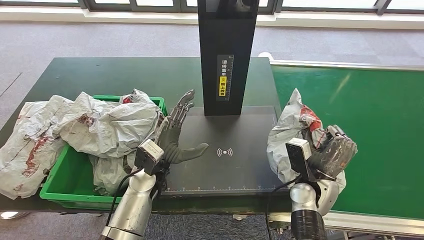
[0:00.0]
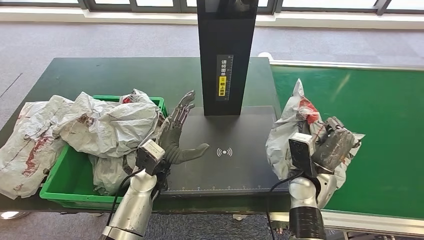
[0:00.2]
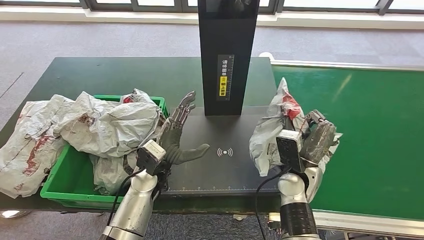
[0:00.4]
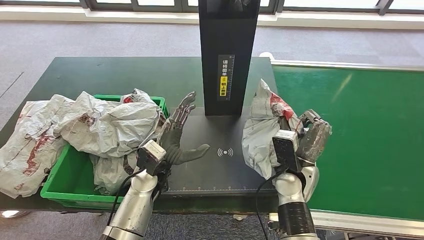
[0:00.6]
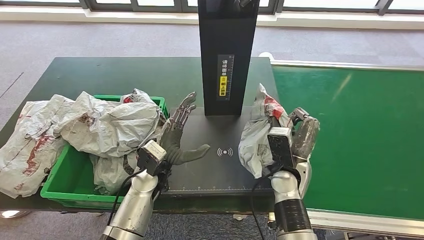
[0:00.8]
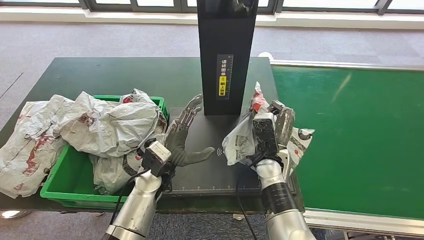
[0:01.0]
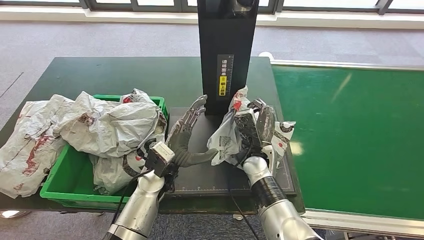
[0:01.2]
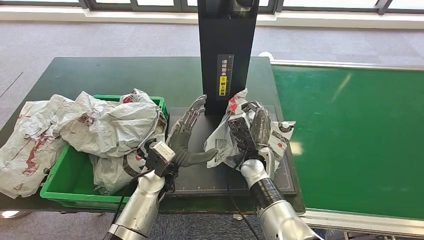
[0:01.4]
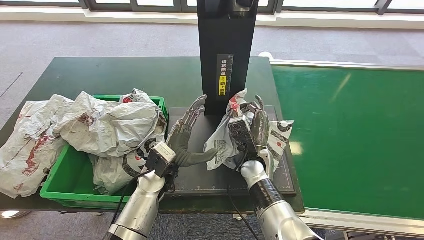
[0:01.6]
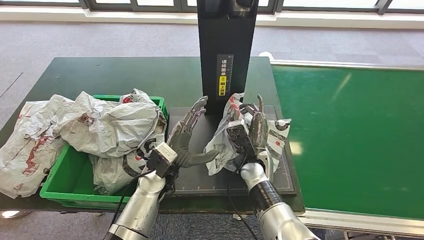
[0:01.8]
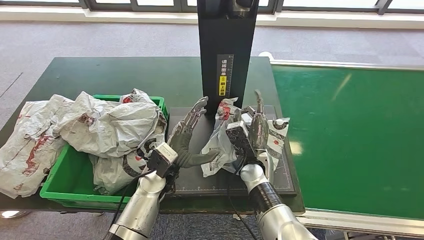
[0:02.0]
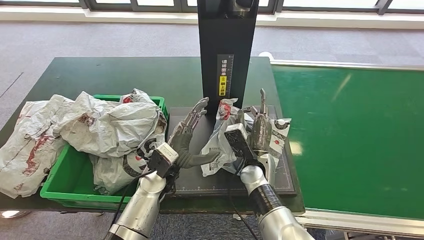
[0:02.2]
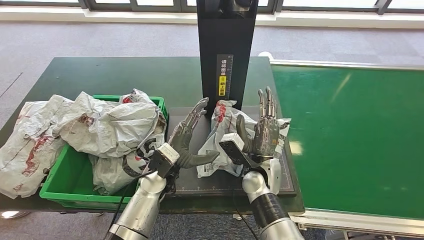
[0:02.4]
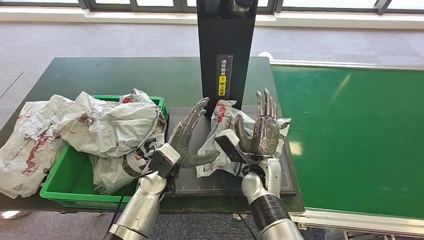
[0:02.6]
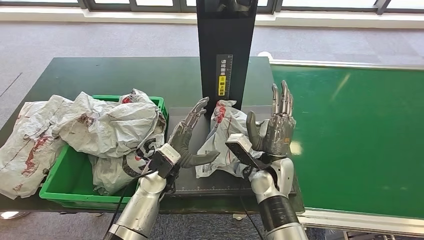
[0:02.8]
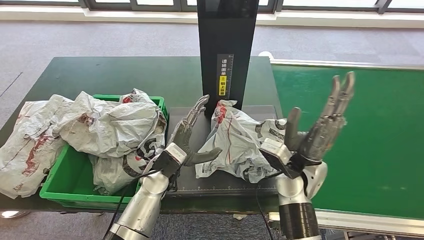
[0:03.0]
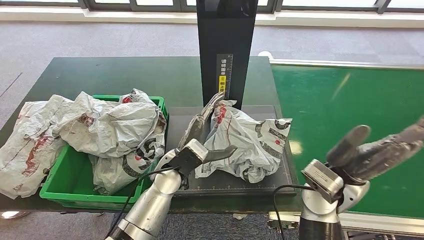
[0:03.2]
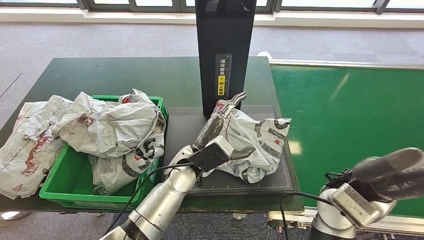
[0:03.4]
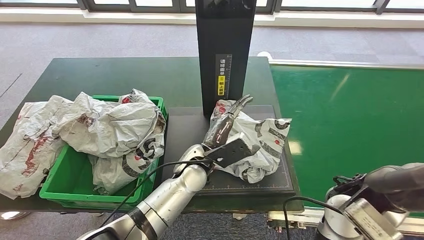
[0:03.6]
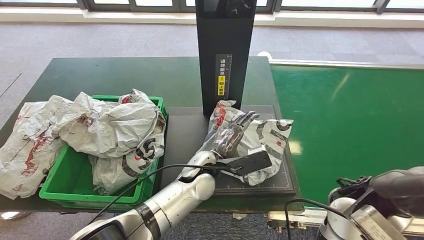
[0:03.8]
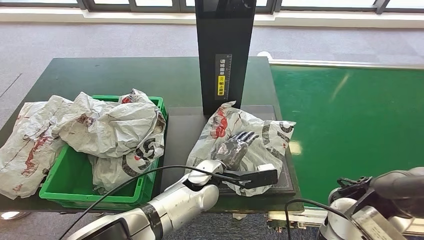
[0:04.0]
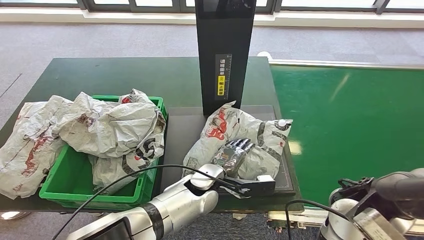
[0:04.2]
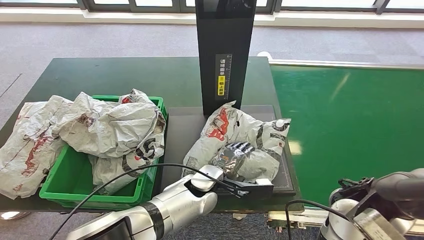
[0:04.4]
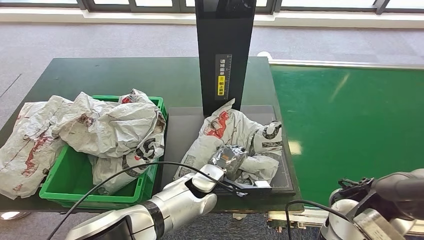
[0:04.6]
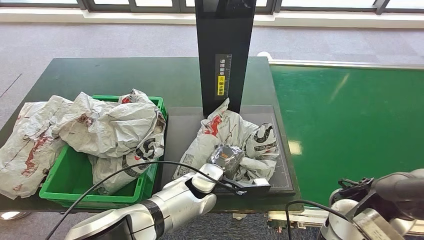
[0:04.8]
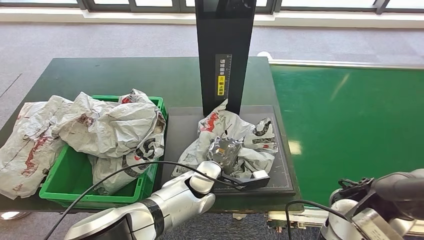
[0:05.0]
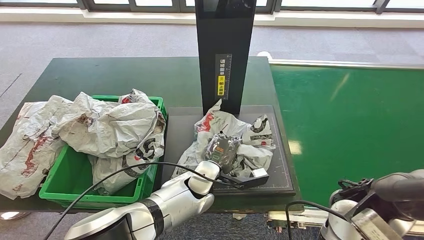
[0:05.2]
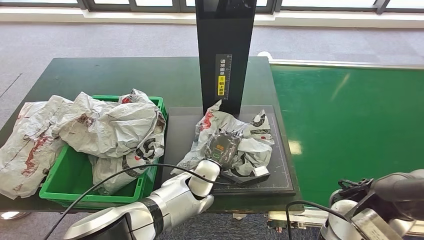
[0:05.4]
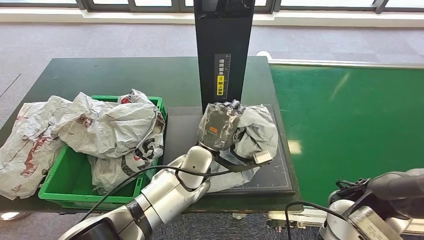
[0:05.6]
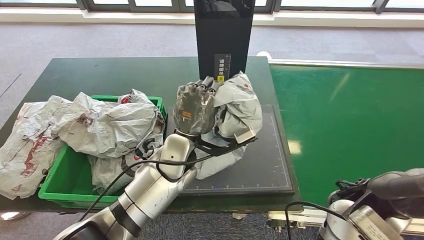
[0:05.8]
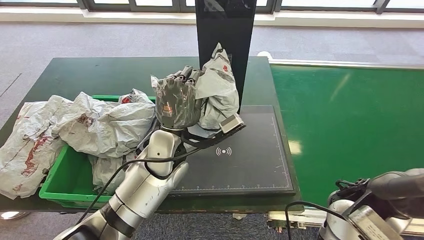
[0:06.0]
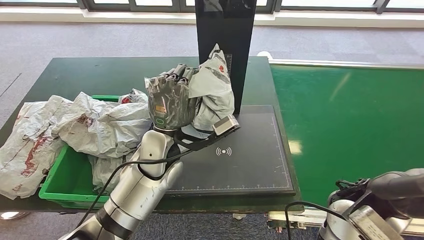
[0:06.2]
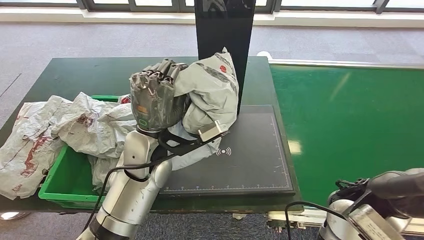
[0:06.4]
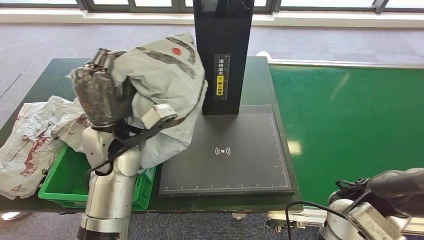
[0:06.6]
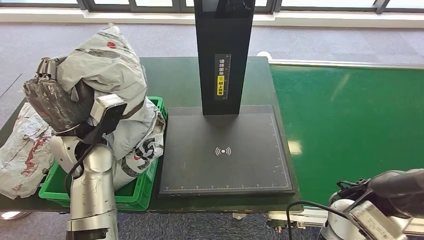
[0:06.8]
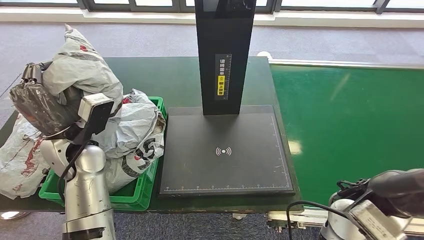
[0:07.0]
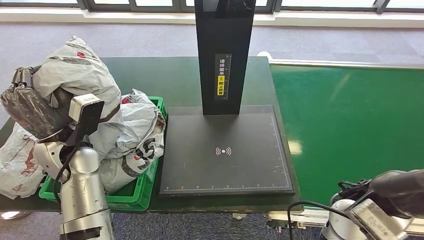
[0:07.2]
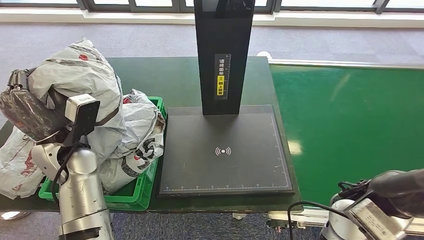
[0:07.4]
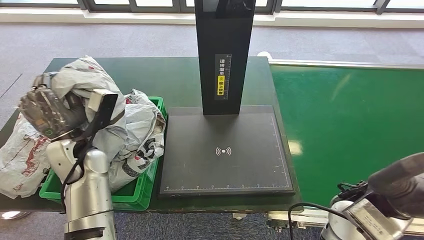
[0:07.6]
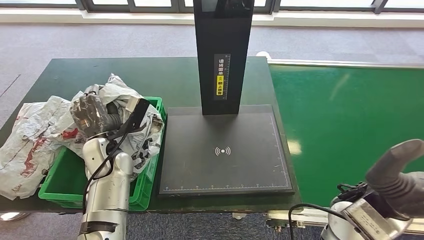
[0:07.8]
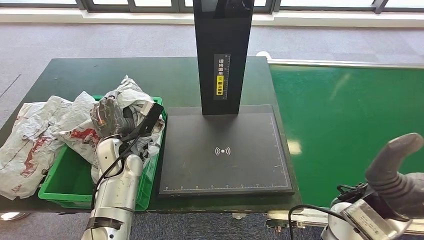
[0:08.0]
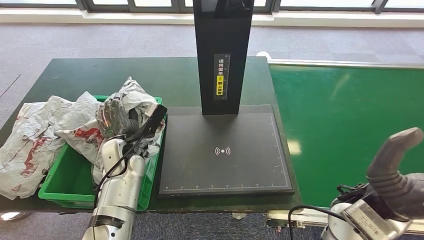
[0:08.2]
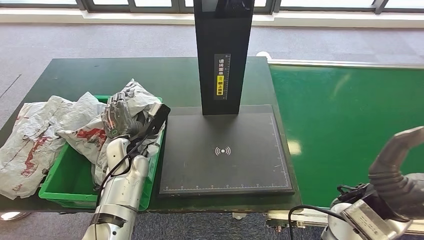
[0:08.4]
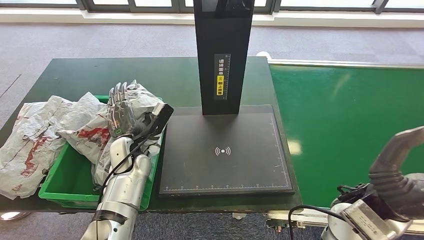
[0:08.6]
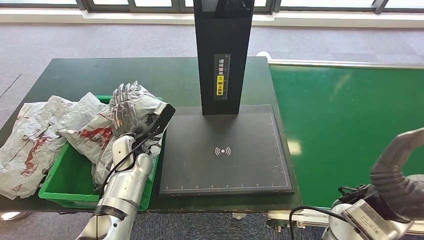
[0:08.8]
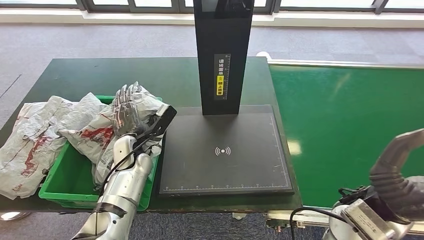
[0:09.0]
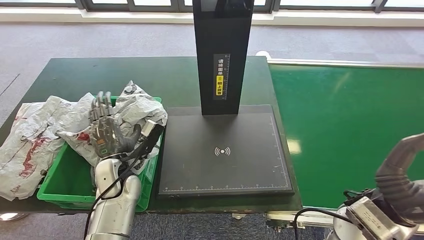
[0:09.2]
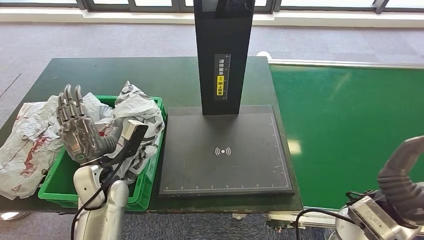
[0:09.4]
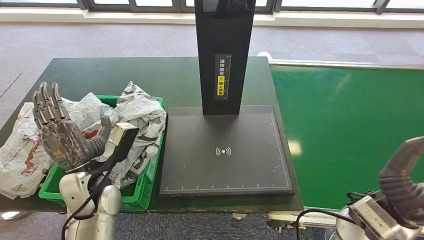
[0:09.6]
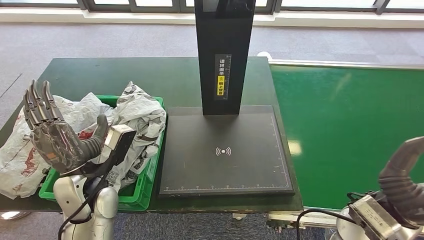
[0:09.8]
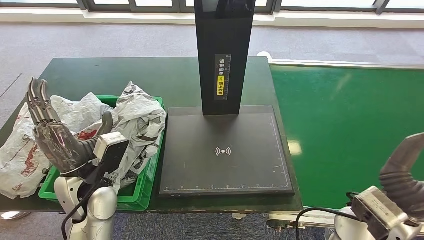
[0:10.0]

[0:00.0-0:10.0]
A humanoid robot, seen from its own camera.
Step, 0:00.8 to 0:03.0: Place the parcel onto the inbound machine.
Step, 0:03.2 to 0:06.0: Pick up the parcel from the inbound machine.
Step, 0:06.2 to 0:10.0: Place the parcel into the delivery box.
0:00.0 to 0:01.4: The right hand goes approximately 15 cm to the left.
0:04.2 to 0:05.8: The left hand heads upward and to the left, covering roughly 10 cm.
0:08.6 to 0:10.0: The left hand goes roughly 15 cm backward and upward.

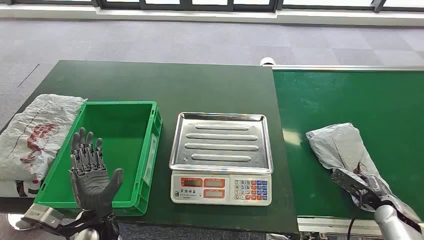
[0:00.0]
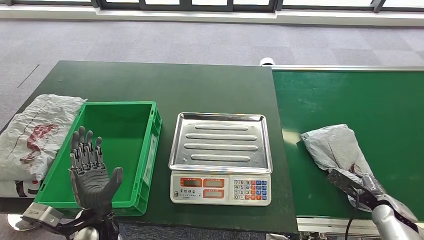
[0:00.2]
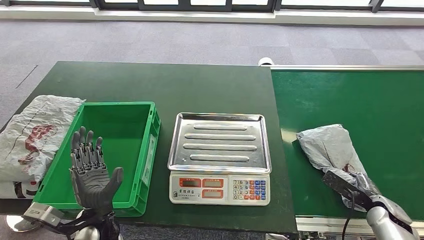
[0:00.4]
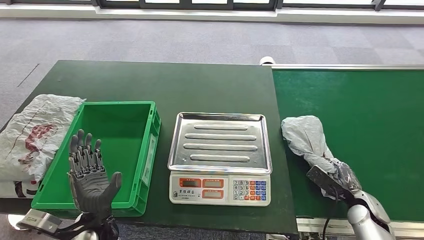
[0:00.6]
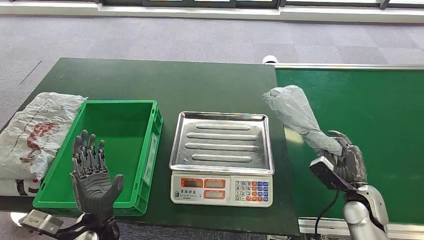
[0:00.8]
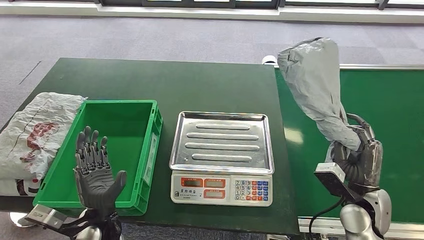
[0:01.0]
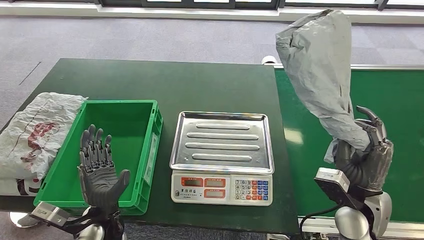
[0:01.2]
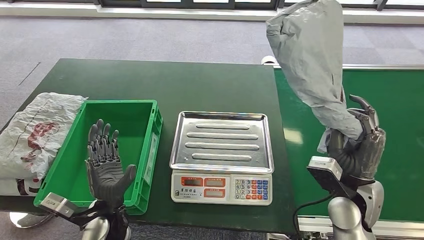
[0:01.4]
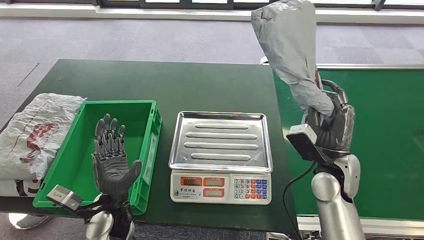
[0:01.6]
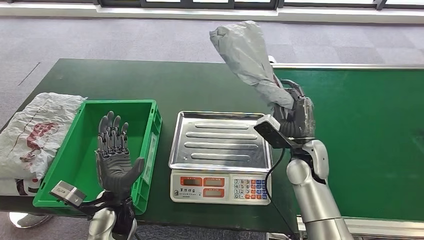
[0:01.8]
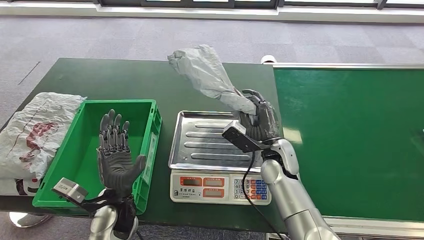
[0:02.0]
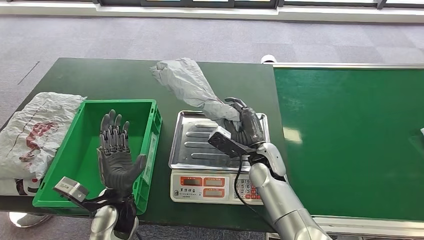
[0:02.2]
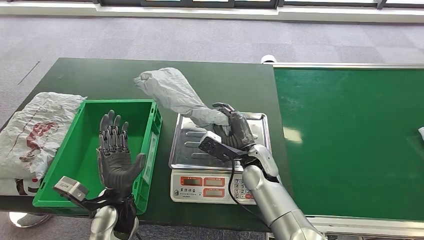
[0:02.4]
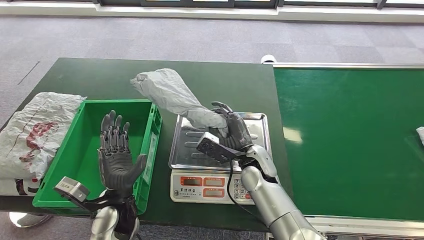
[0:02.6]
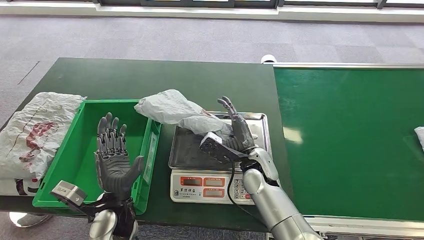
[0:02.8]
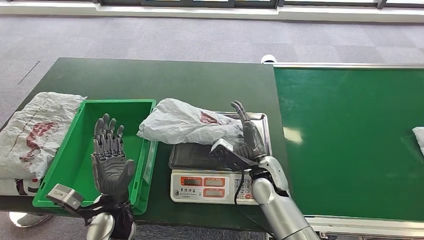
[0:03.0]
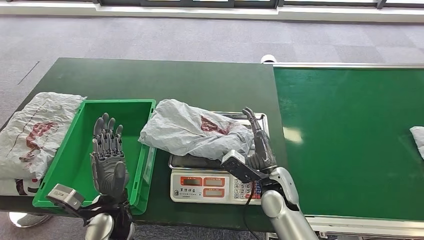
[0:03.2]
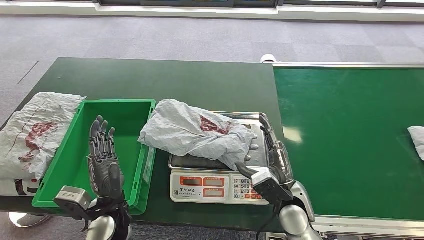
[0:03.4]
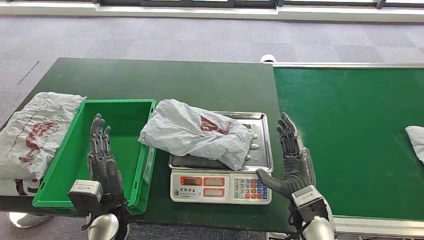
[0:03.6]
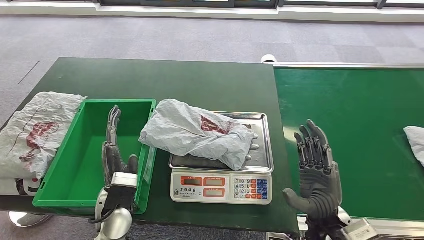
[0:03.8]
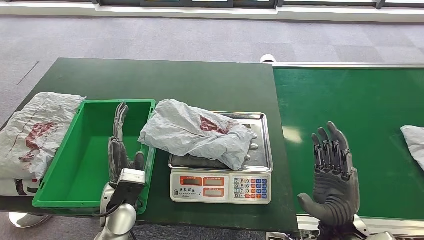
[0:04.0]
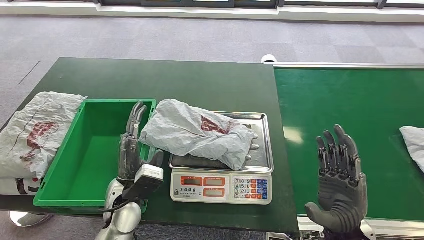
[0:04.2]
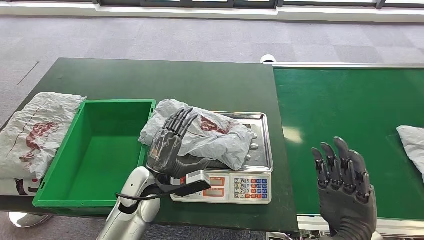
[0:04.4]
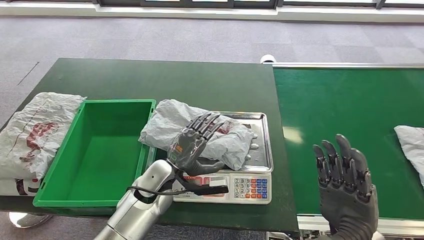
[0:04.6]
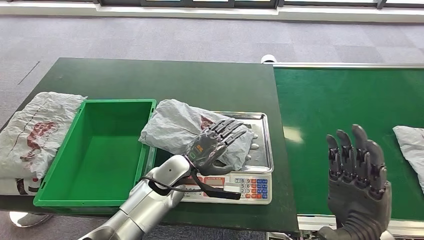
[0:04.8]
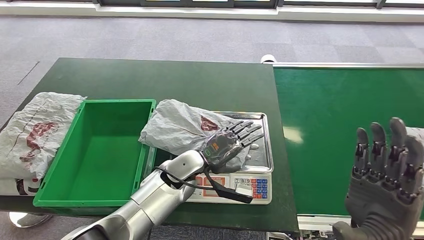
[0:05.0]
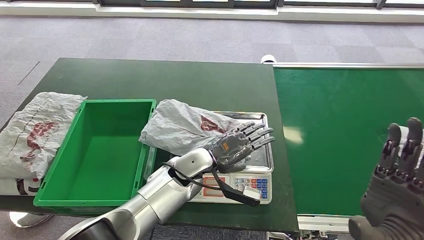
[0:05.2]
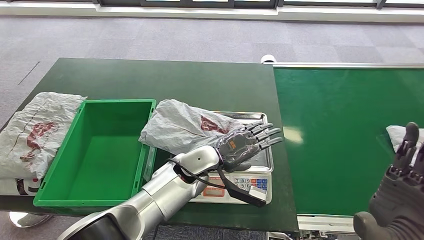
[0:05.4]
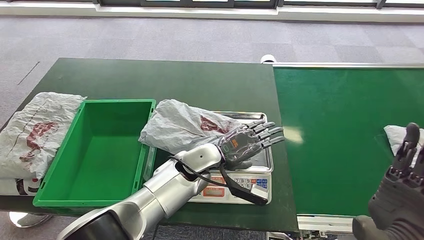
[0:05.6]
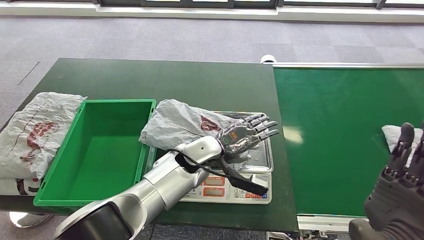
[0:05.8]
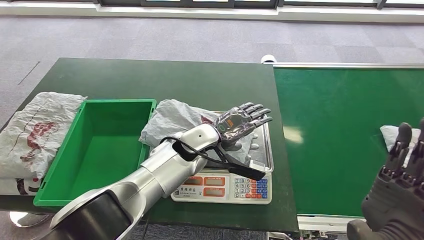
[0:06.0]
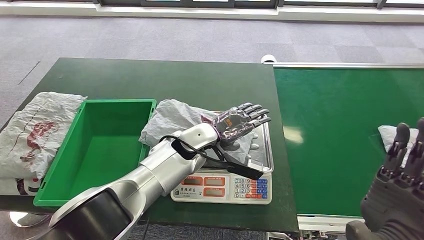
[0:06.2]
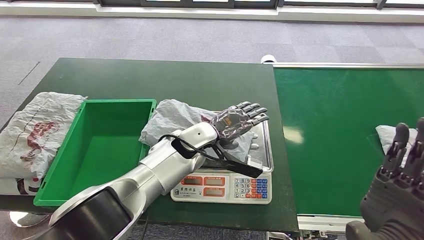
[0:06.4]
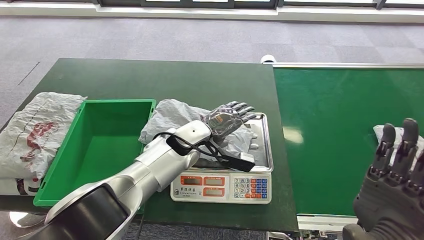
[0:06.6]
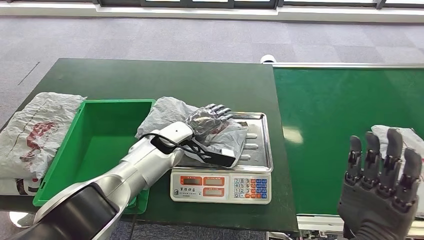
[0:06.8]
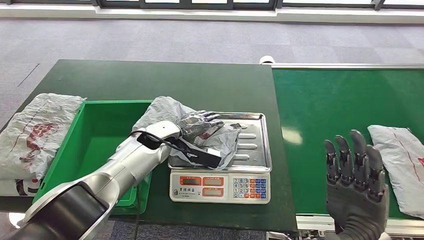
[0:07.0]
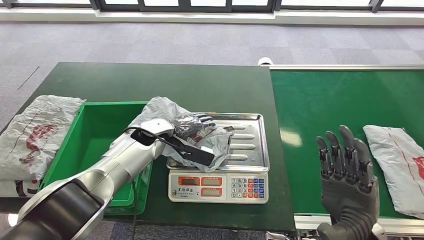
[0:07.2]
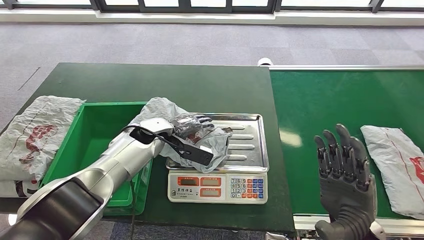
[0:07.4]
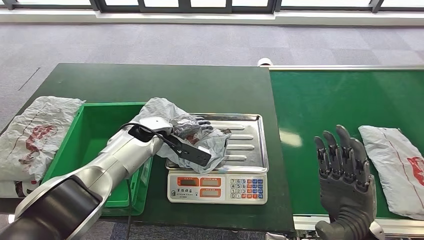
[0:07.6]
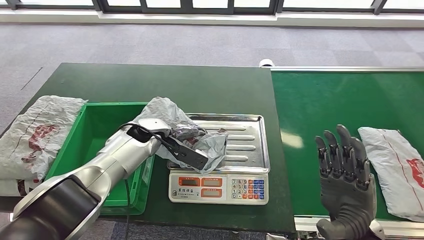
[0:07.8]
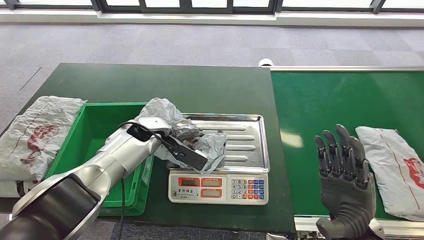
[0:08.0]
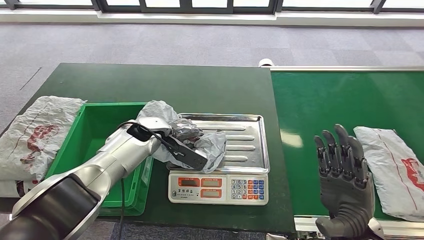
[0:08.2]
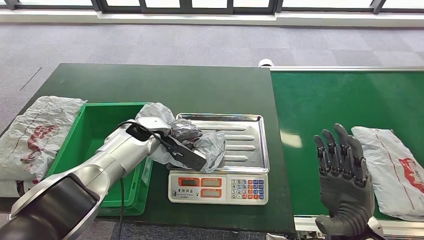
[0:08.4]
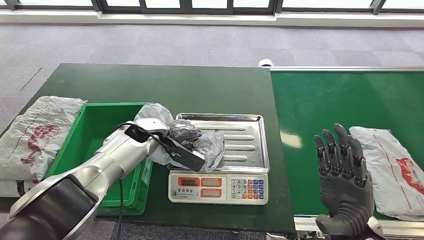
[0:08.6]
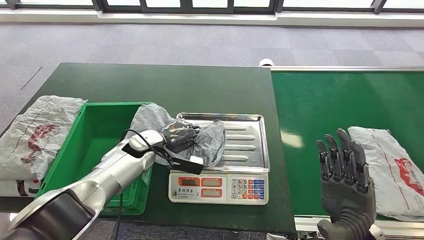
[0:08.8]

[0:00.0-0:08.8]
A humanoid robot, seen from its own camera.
Step, 0:00.0 to 0:01.2: Take the parcel off the conveyor belt.
Step, 0:01.4 to 0:03.8: Place the parcel onto the inbound machine.
0:03.0 to 0:04.4: The right hand moves to the right, backward and upward, roughly 20 cm. The left hand goes roughly 10 cm forward and to the right.
0:04.4 to 0:05.8: The left hand heads to the right and forward, covering roughly 15 cm. Meanwhile the right hand shifts approximately 10 cm upward.
